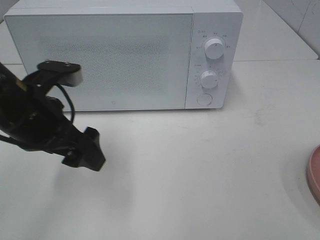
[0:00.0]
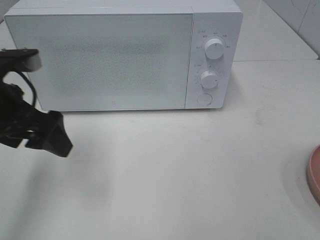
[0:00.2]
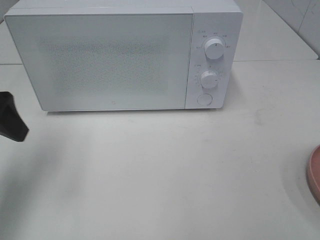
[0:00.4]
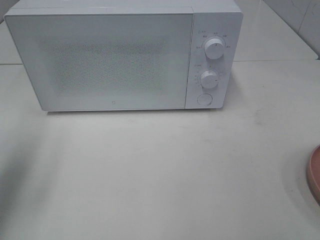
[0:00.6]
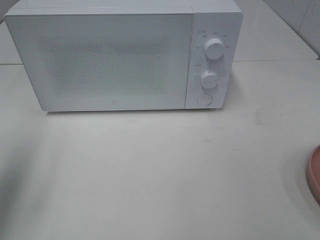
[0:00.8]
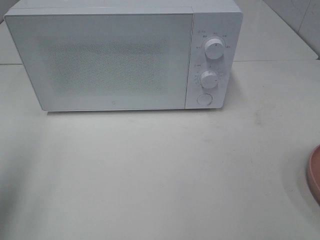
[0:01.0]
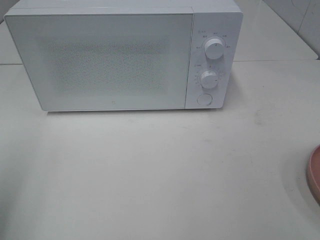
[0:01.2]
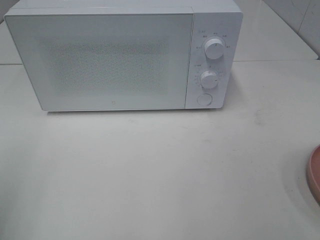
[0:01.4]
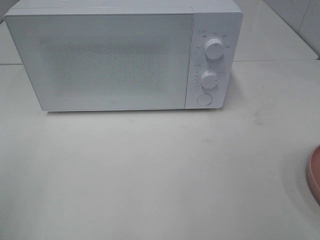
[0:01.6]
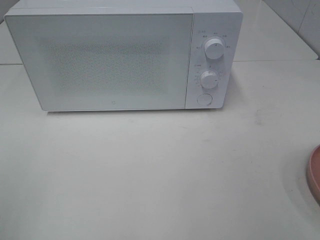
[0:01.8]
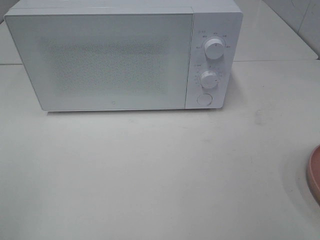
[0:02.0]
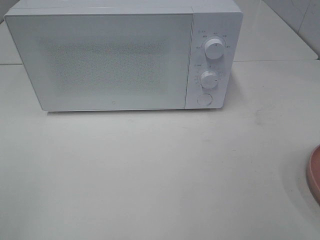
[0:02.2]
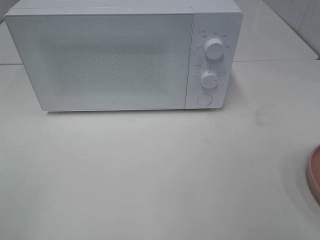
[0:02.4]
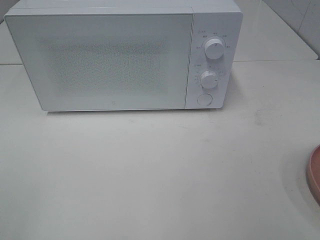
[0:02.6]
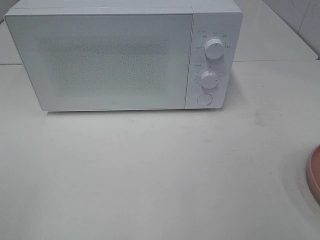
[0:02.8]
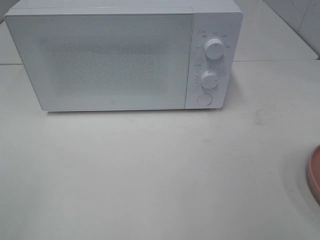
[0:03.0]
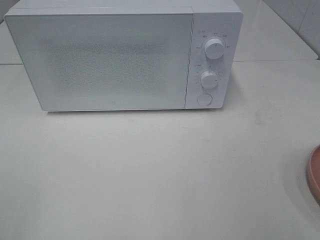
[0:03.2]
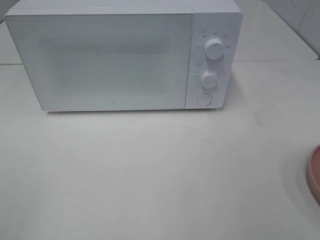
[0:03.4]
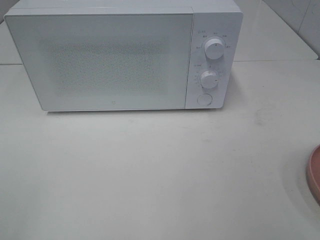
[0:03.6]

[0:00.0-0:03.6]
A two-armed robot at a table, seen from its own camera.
Task of the whole recording: Heat the burger.
0:00.0 to 0:01.8: The left gripper shifts roughly 25 cm backward, to the left and upward.

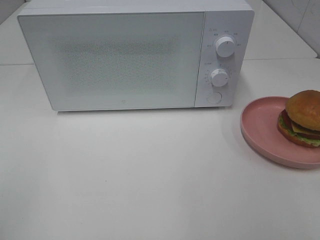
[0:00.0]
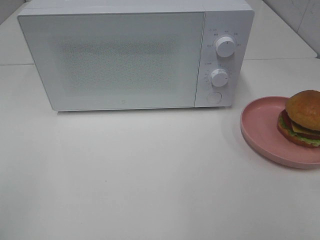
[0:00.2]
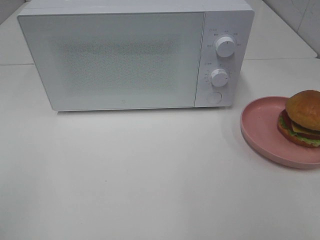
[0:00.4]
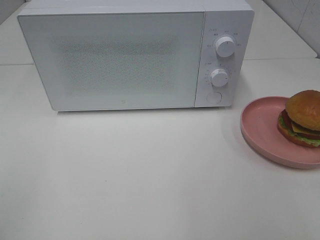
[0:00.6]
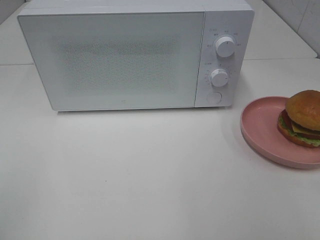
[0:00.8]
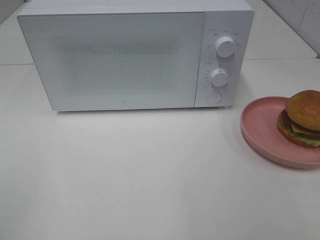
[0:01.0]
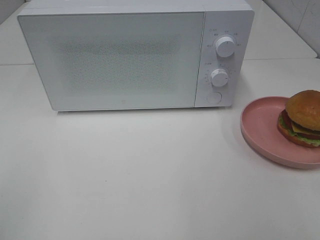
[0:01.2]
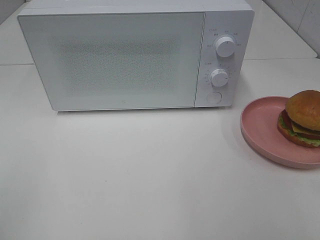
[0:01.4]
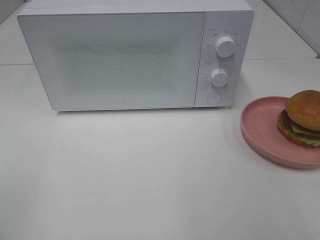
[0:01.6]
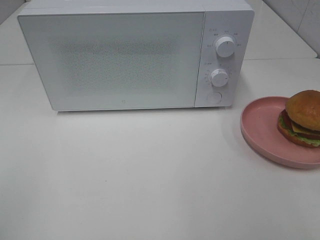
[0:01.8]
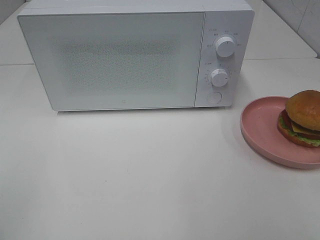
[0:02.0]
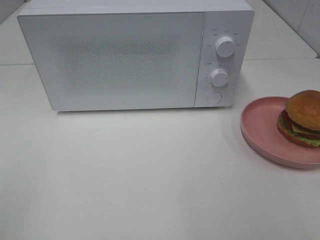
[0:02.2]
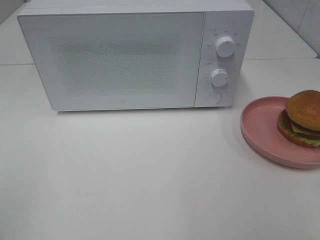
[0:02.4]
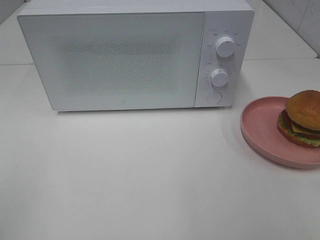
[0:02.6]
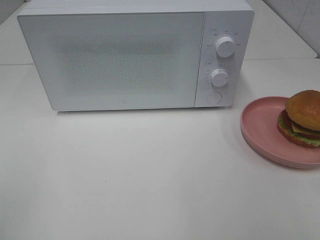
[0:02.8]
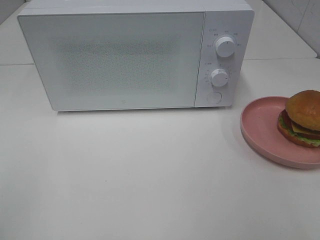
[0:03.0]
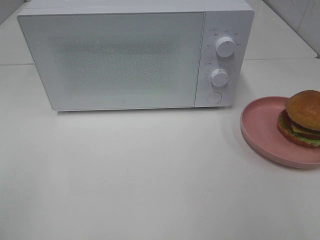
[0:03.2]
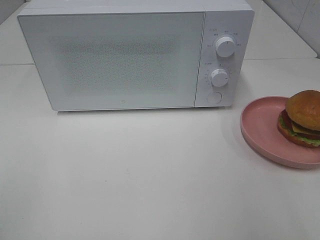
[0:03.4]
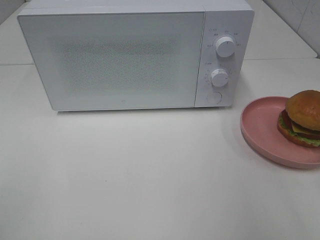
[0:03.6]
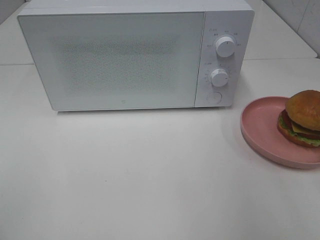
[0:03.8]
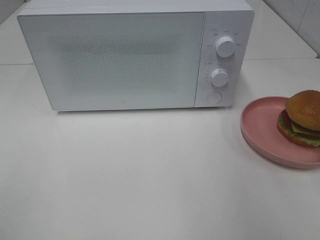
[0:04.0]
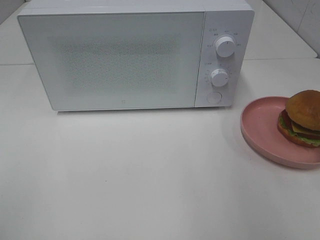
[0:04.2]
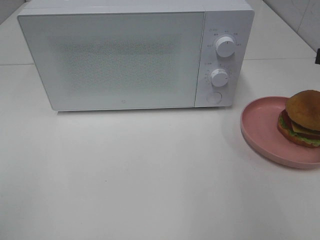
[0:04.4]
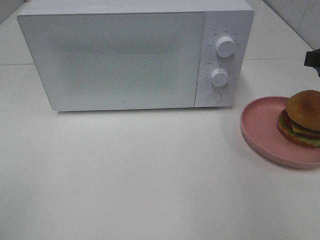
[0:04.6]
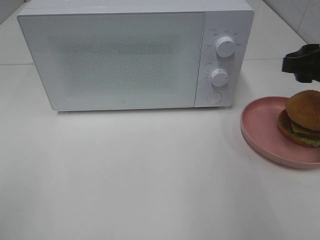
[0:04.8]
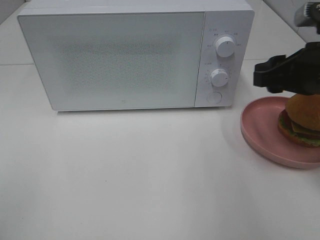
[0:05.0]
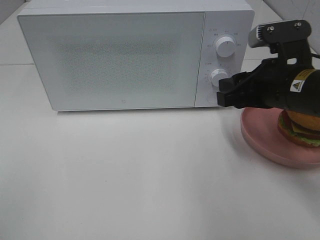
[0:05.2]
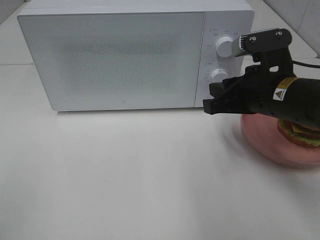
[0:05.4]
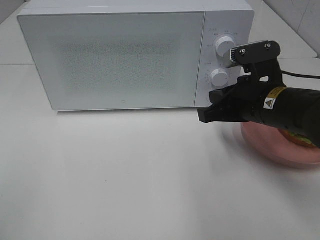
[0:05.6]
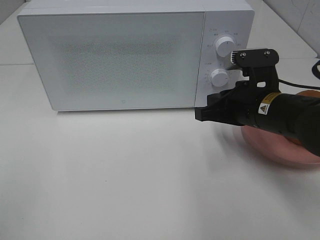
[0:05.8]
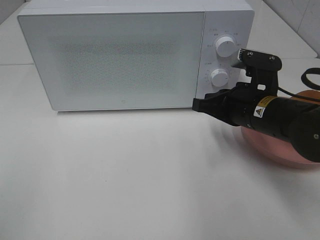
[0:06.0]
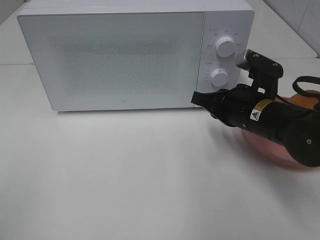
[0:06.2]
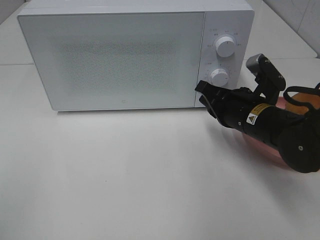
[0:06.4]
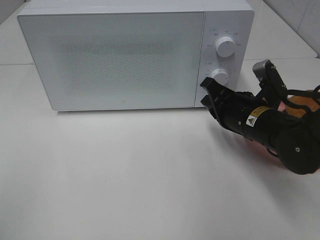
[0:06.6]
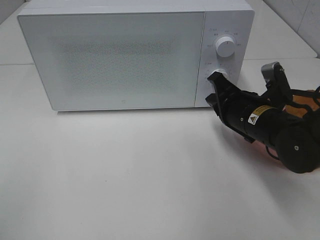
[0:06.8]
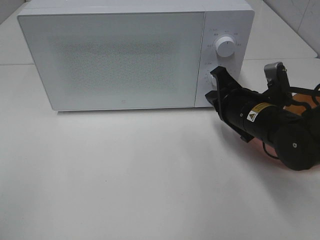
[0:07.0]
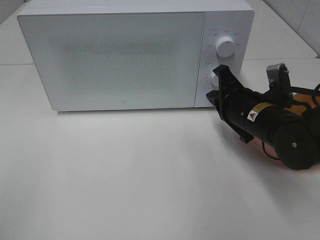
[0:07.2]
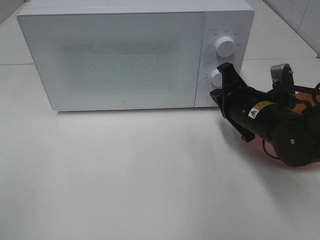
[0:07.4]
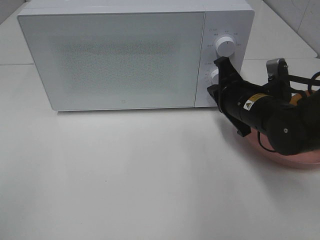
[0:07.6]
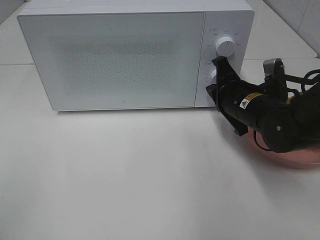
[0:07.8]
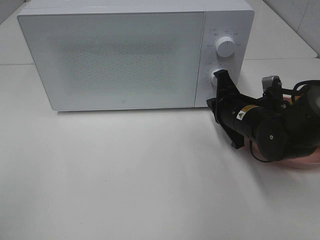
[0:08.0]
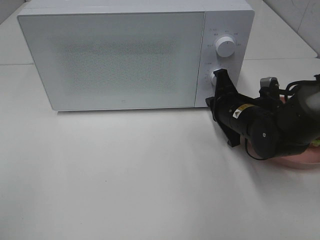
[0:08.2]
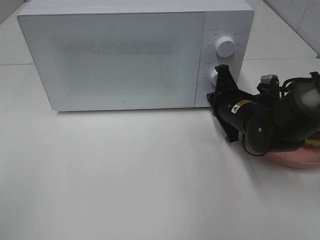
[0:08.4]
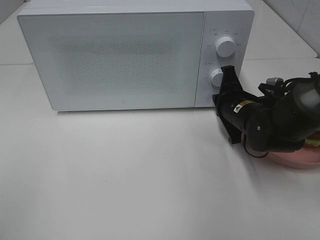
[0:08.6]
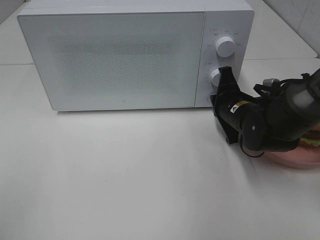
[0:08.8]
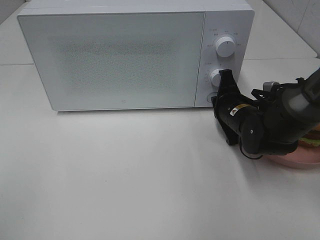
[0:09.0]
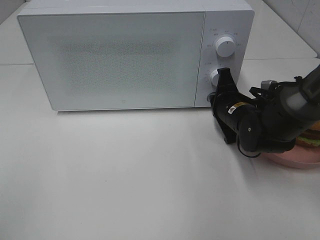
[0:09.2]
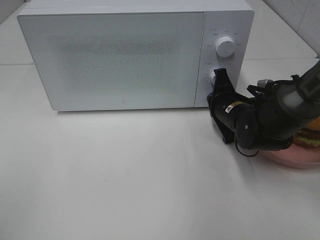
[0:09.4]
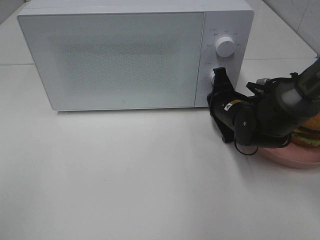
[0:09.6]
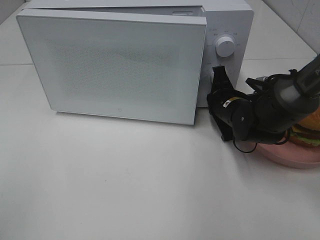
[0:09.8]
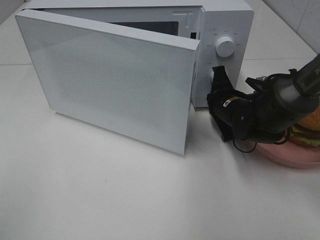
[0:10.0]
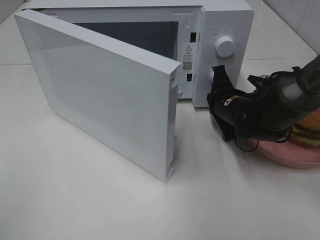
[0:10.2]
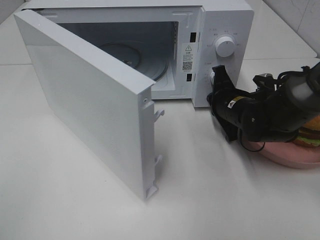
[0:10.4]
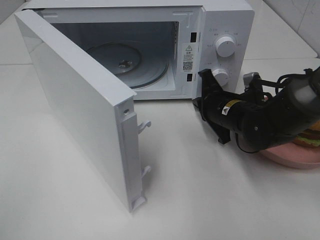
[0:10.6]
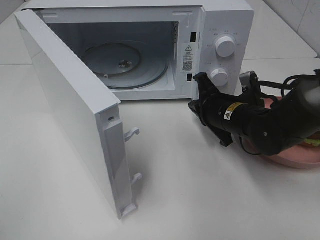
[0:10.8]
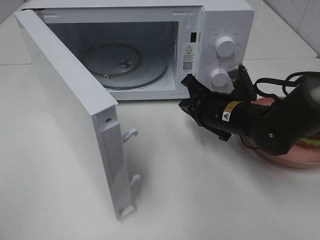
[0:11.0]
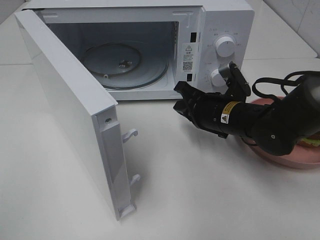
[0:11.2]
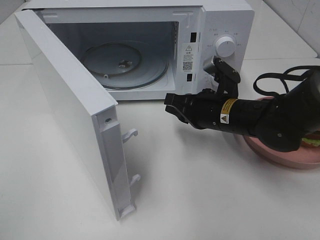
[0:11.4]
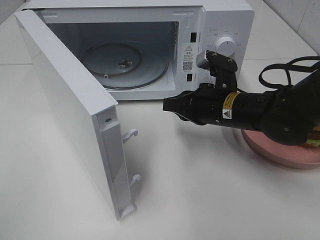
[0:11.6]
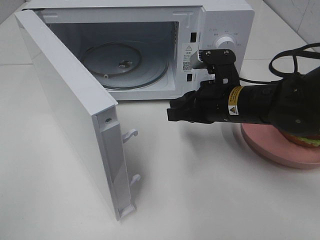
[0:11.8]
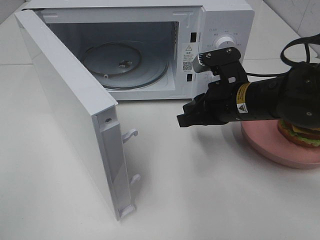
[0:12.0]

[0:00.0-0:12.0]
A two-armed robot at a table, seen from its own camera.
Task of the whole recording: Heat the burger.
Step, 0:00.0 to 0:10.4: Right hand: press the switch.
0:00.0 to 0:01.6: The two grippers keep their place.
0:04.4 to 0:06.0: The right gripper travels to the left and downward by some 20 cm, and closes.
0:07.6 to 0:09.0: The right gripper shifts roughly 5 cm downward.
0:10.4 to 0:12.0: The right gripper heads upward and backward, covering some 10 cm.

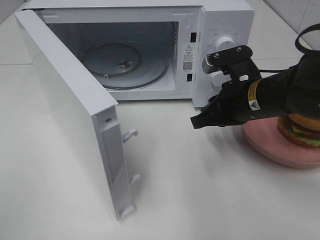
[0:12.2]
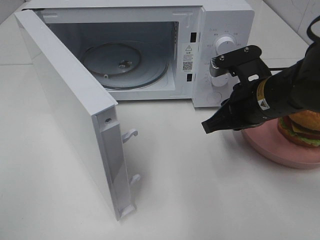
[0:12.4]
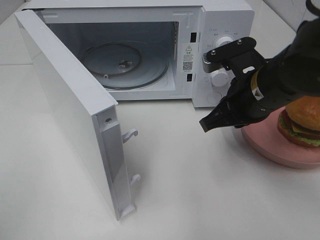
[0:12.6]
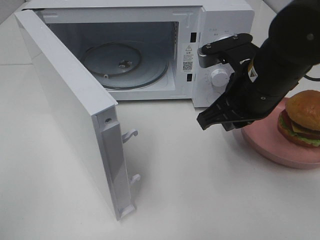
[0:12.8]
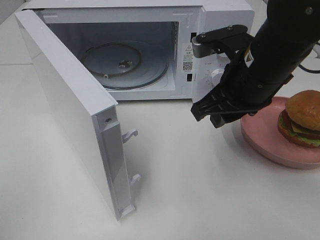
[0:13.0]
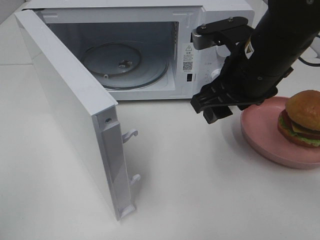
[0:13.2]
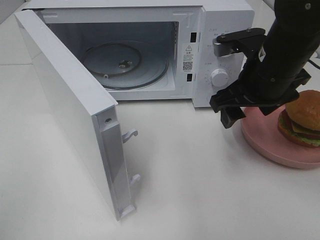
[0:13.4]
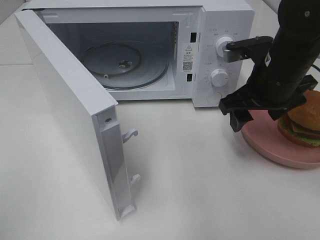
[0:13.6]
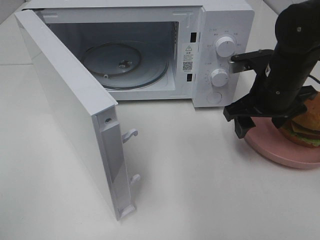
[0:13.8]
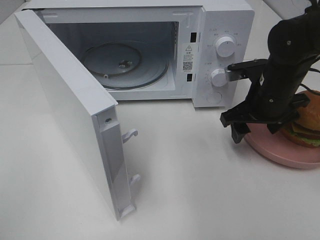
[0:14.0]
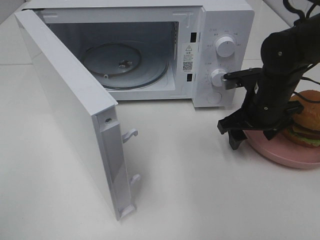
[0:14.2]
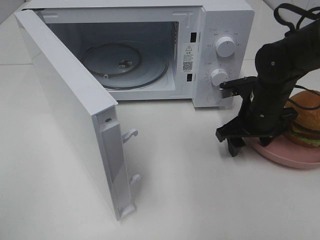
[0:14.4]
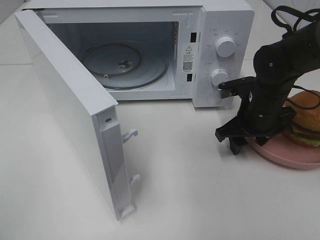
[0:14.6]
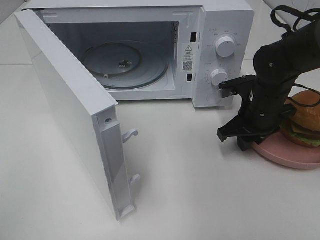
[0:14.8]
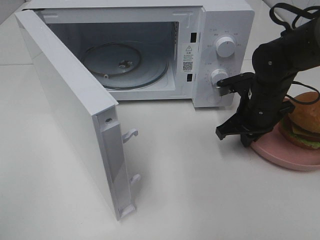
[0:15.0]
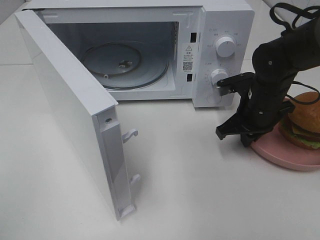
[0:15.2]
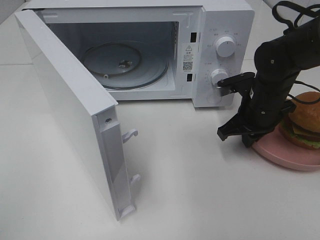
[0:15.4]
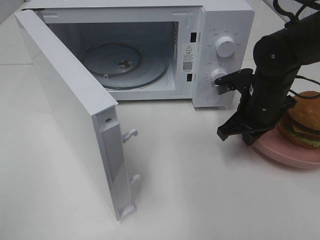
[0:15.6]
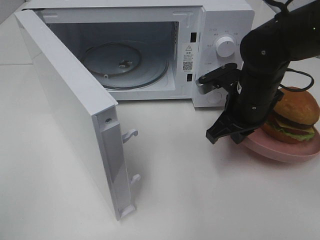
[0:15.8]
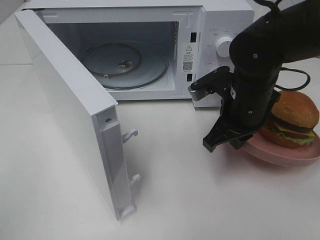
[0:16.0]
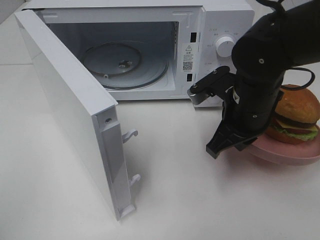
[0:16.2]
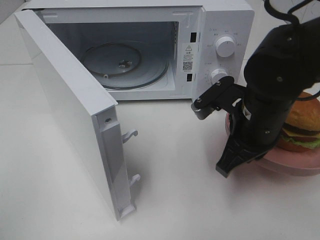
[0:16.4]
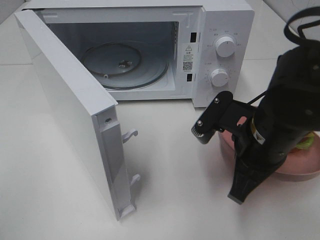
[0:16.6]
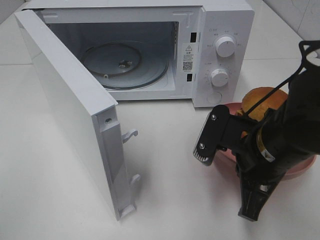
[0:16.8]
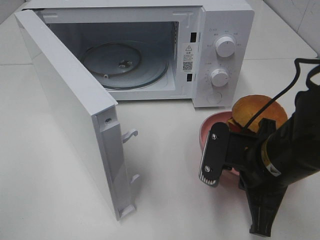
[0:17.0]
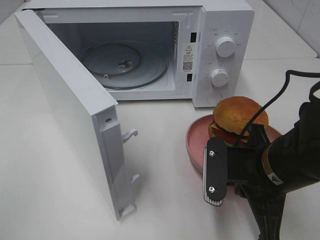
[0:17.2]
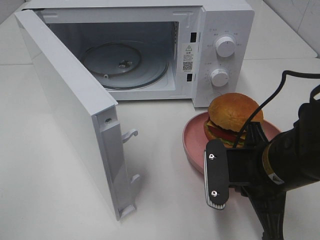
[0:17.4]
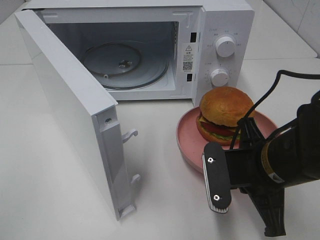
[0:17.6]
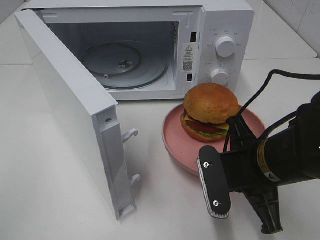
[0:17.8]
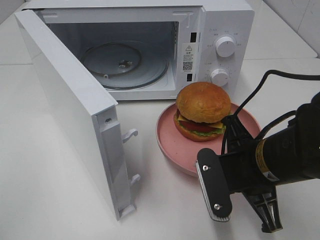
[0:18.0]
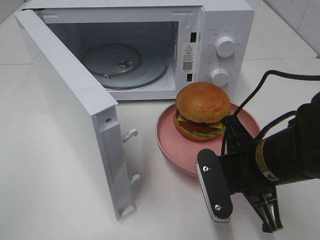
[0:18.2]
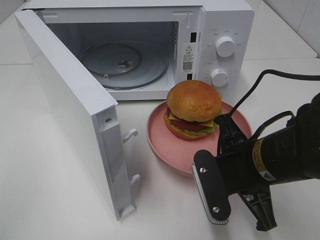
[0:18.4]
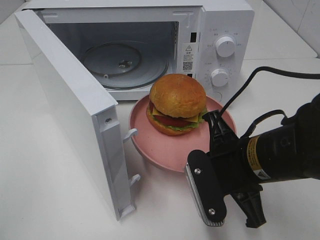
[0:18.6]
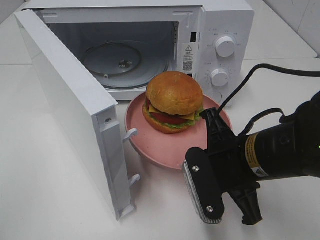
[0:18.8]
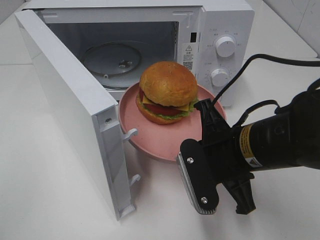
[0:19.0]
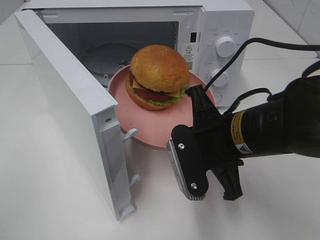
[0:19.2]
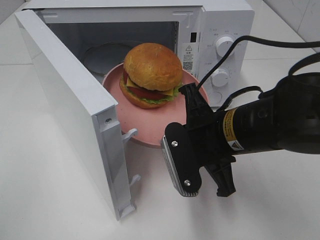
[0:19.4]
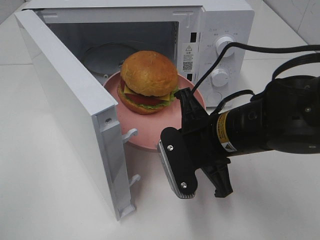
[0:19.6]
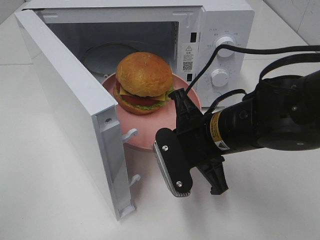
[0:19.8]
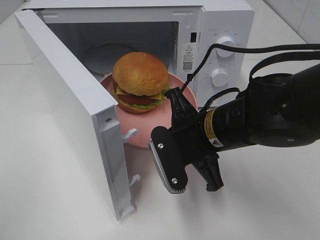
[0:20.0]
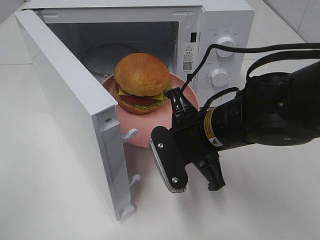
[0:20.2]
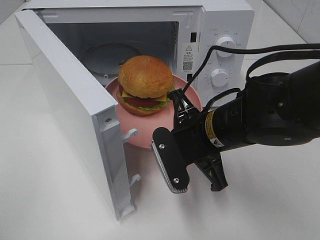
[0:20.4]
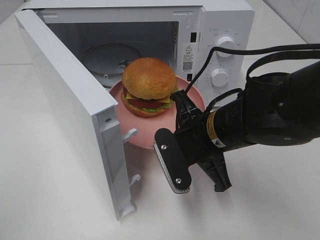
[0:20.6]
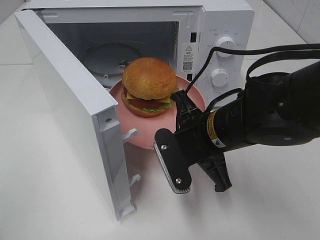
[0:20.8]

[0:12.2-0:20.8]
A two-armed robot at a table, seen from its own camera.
Task of the whole recording: Heat the burger.
Step, 0:12.2 to 0:15.0: Right hand: grab the plate with the hamburger.
0:12.2 to 0:13.6: The right gripper moves some 5 cm, and opens up.
0:13.6 to 0:15.0: The right gripper shifts roughly 10 cm downward, and closes.
0:15.0 to 0:16.6: The right gripper heads backward and upward, covering about 15 cm.
0:18.0 to 0:19.4: The right gripper changes place by roughly 5 cm.
0:19.4 to 0:20.8: The grippers move only a little.
